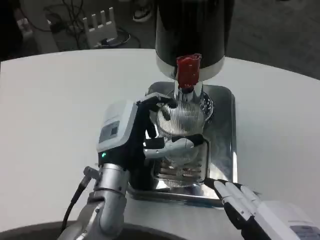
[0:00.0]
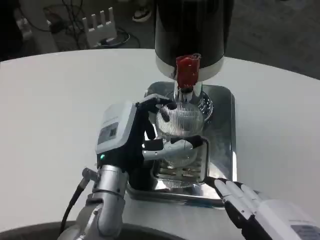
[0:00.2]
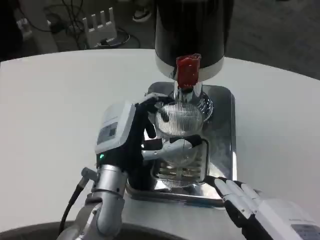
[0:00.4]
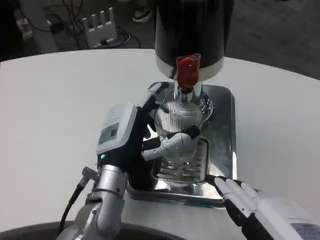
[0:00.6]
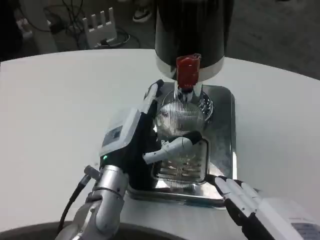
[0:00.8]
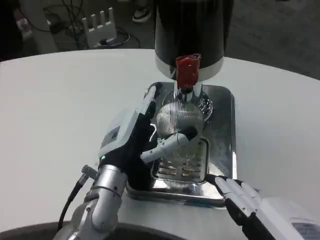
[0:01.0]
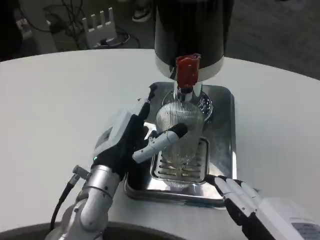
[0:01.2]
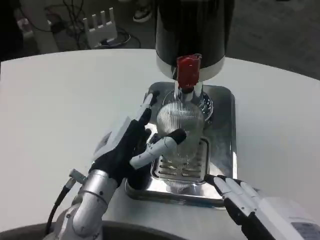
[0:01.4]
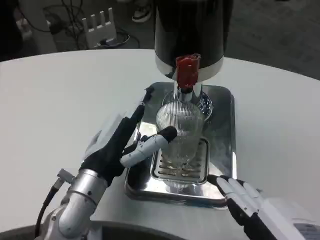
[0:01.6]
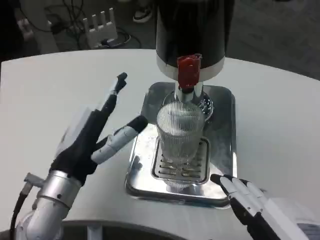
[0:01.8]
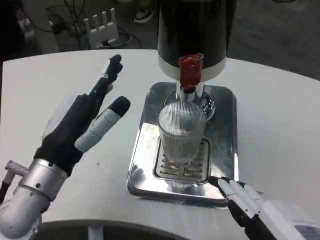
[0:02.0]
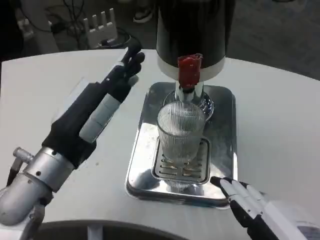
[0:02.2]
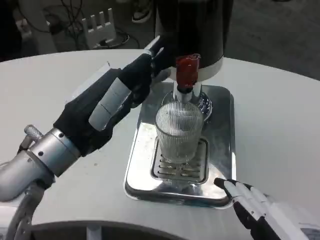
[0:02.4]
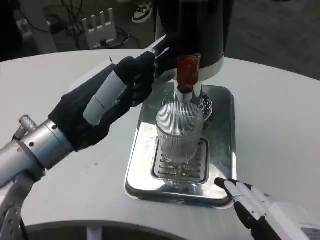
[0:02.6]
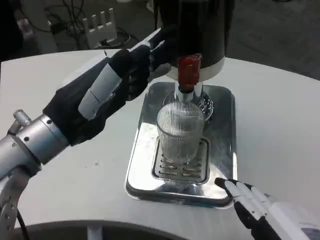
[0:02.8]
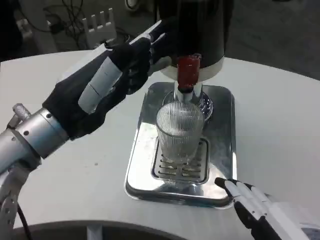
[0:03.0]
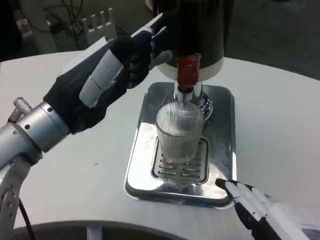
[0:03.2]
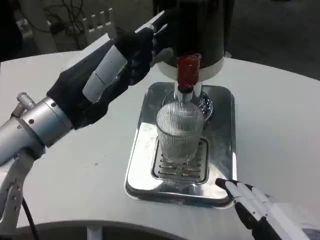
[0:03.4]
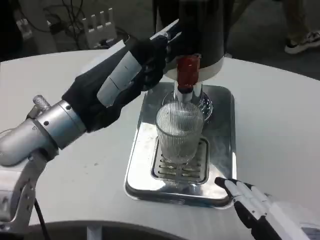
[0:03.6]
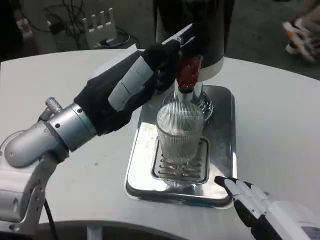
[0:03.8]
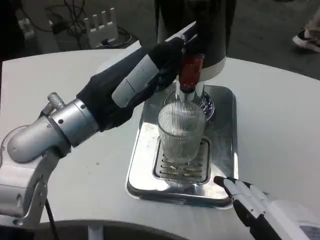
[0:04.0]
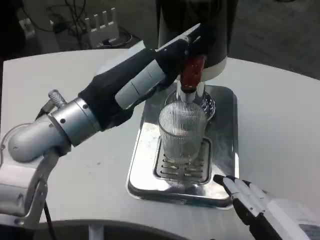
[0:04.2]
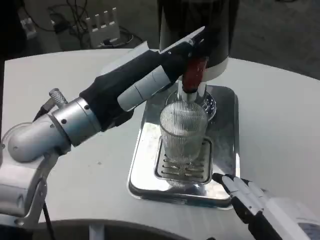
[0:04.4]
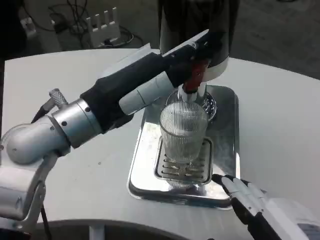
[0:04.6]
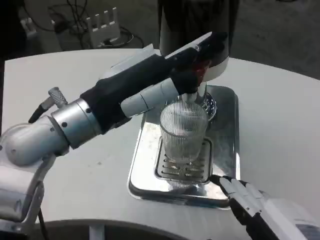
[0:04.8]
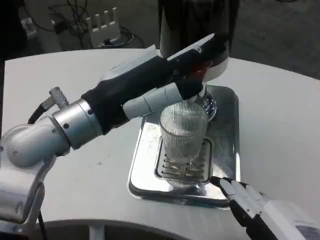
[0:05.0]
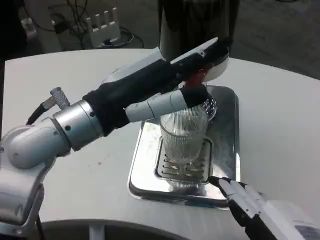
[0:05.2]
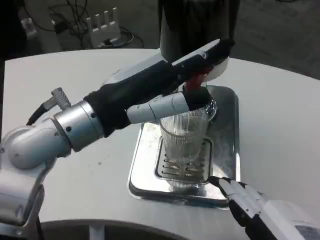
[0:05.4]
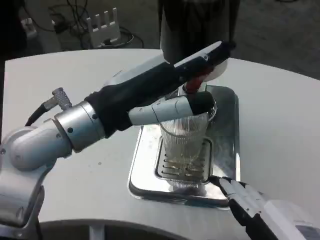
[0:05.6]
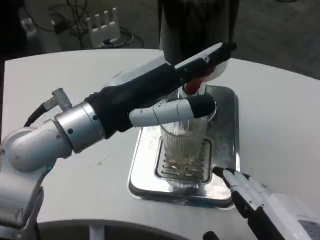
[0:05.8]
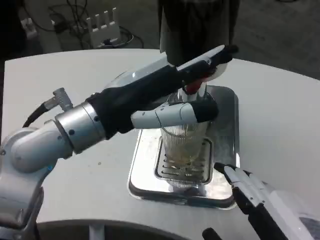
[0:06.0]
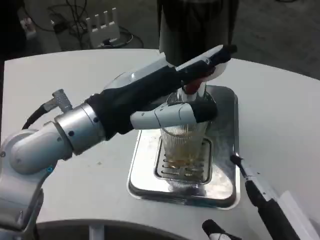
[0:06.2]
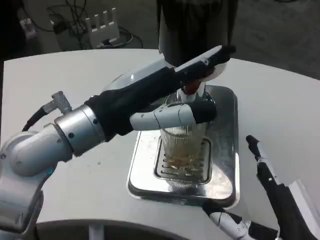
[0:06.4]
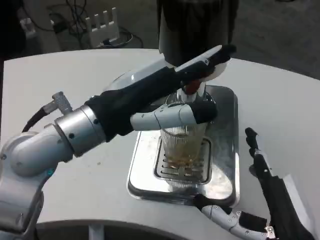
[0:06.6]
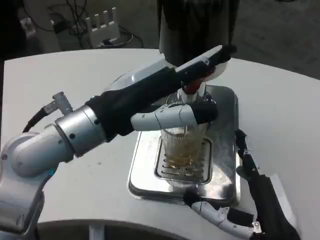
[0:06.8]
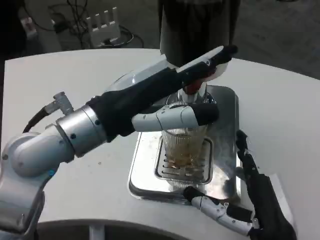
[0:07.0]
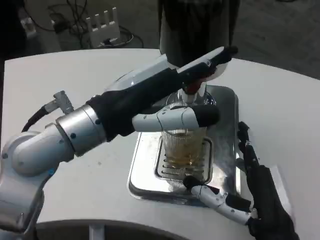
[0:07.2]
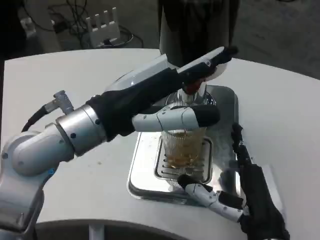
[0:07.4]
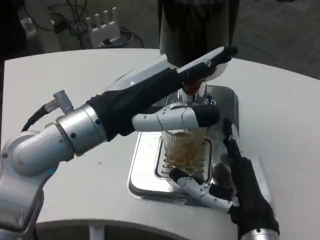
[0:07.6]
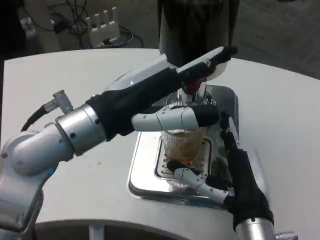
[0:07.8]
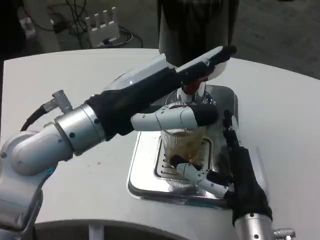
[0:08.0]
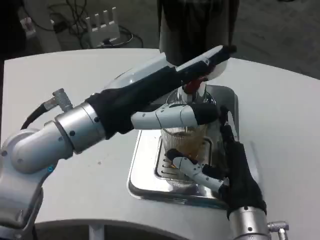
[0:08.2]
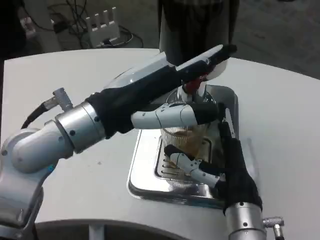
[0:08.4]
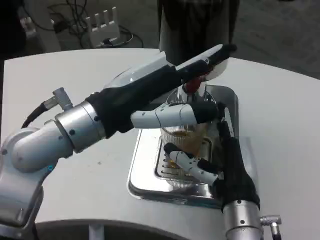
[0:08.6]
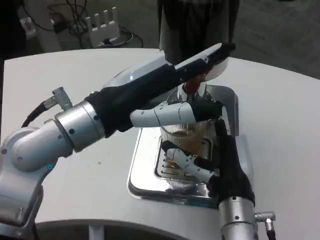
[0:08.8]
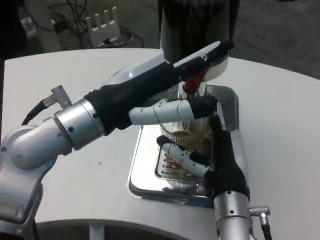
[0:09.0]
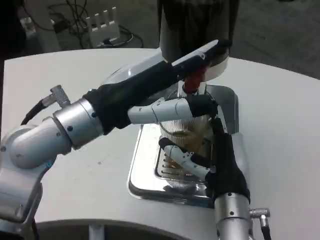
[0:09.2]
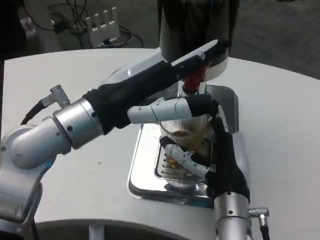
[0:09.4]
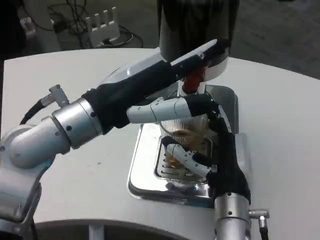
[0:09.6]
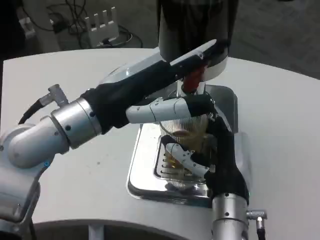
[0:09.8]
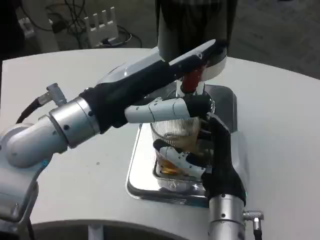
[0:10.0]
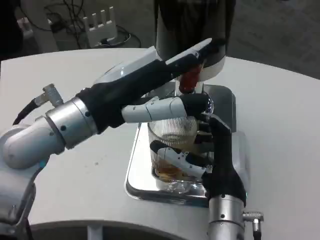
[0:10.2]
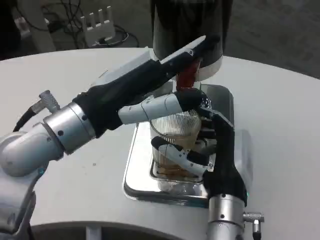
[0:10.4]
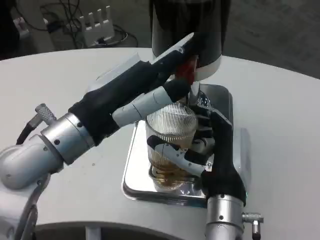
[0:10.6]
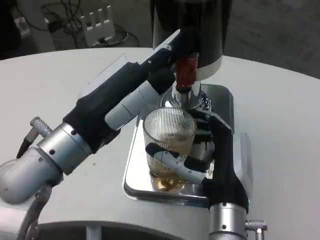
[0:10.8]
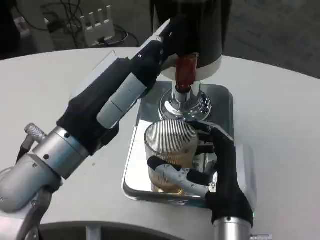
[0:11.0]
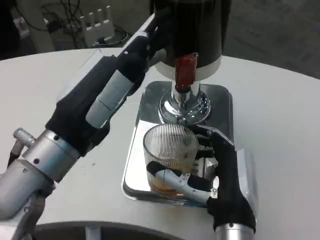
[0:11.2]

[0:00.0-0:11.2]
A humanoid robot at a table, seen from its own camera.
Task of the whole recording: Grasp the cup under the faucet to collect the drink, then remove the cup.
0.0 to 1.6 s: The left hand ends up about 5 cm from where it was.
1.6 to 3.2 s: The left hand moves upward, approximately 15 cm.
4.8 to 6.4 s: The right hand moves approximately 5 cm.
6.4 to 8.0 s: The right hand shifts some 10 cm forward and to the left.
9.6 to 11.2 s: The left hand shifts by roughly 5 cm. The right hand moves backward, approximately 5 cm.

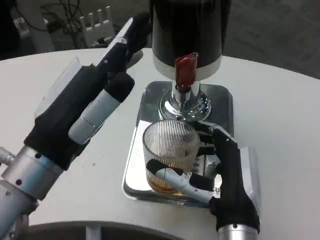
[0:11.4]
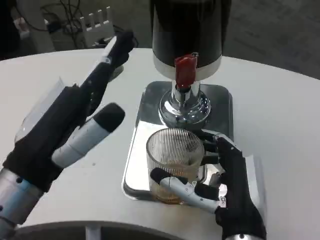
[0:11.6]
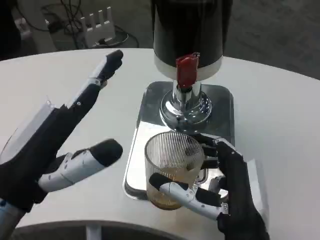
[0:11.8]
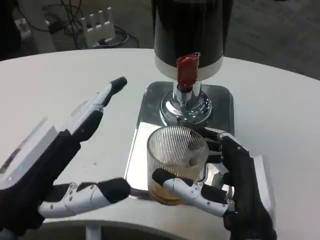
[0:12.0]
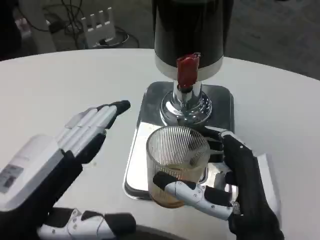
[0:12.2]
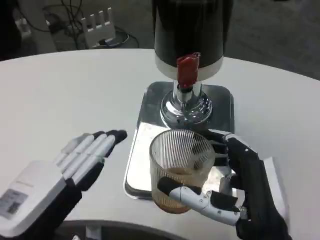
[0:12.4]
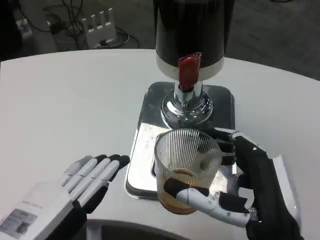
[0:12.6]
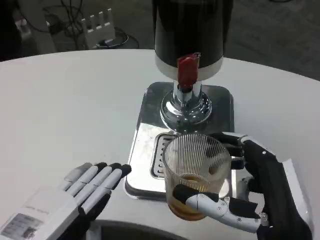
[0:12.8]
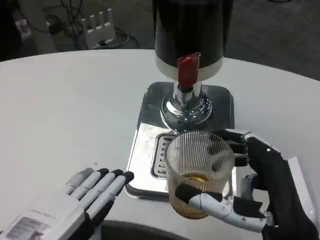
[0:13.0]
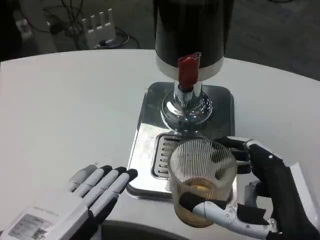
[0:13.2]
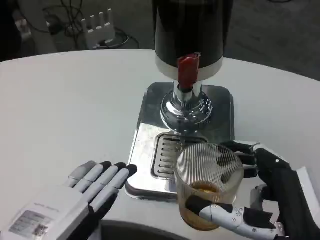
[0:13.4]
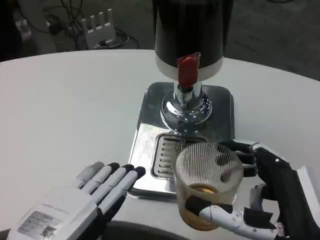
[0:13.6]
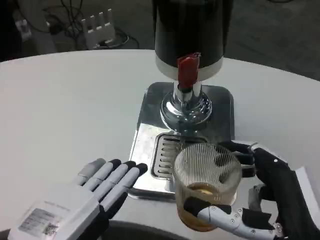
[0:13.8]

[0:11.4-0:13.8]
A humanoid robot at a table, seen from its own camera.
Task of the whole recording: Grasp the cup under the faucet to collect the drink, then remove the cup.
11.4 to 12.6 s: The right hand goes approximately 5 cm backward. The left hand travels downward and backward by approximately 10 cm.

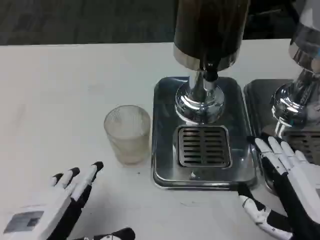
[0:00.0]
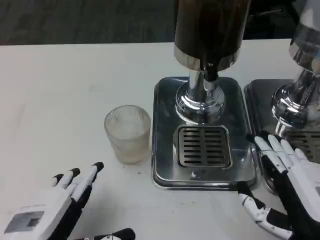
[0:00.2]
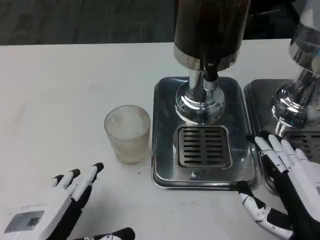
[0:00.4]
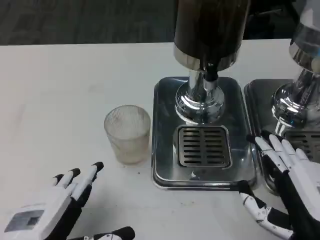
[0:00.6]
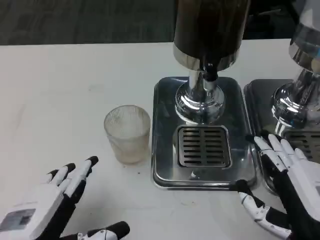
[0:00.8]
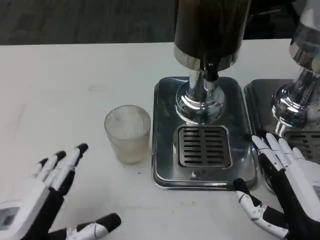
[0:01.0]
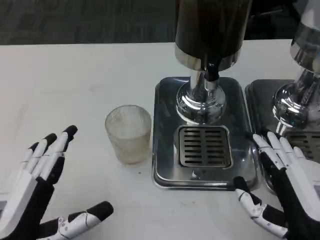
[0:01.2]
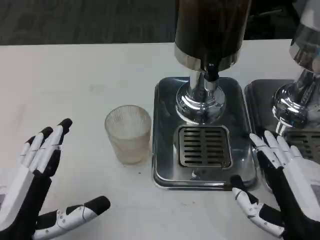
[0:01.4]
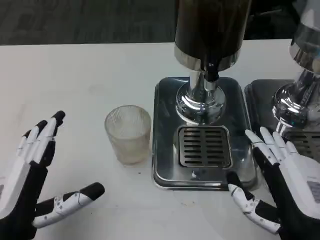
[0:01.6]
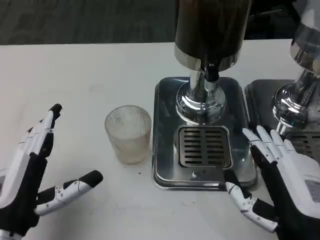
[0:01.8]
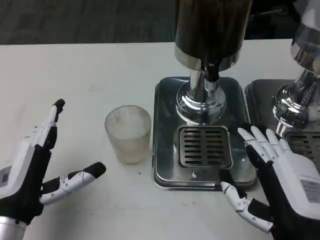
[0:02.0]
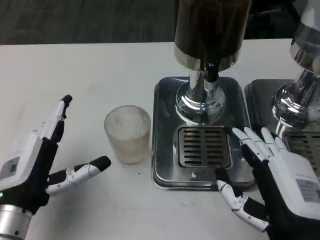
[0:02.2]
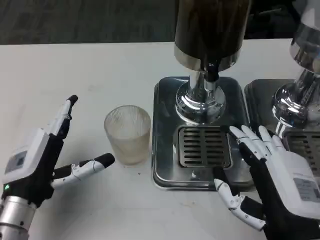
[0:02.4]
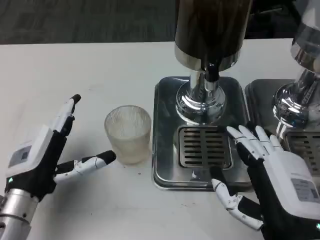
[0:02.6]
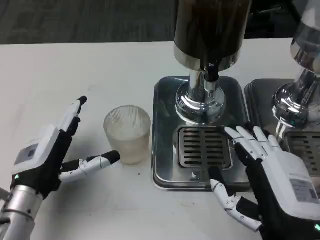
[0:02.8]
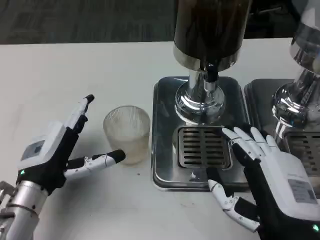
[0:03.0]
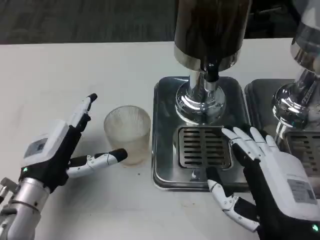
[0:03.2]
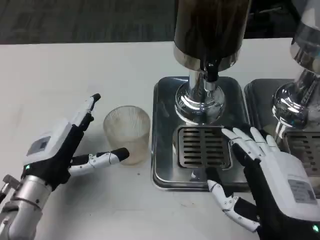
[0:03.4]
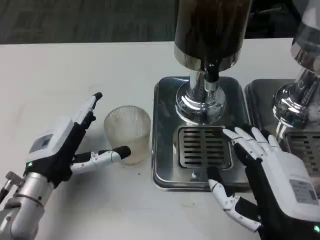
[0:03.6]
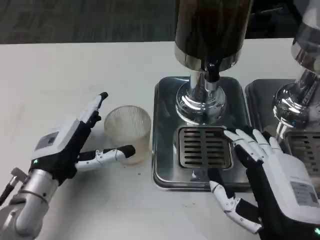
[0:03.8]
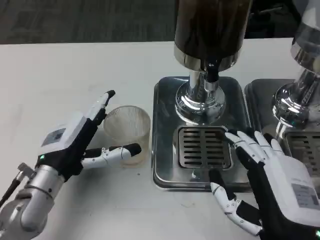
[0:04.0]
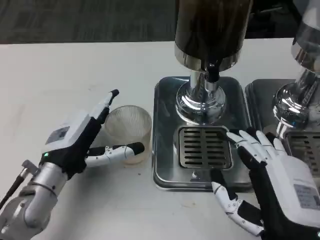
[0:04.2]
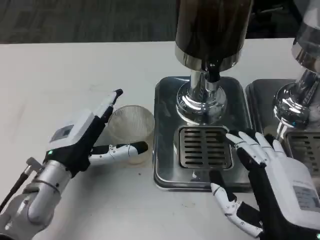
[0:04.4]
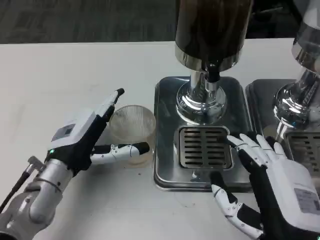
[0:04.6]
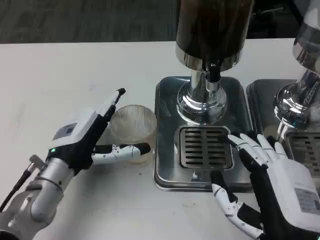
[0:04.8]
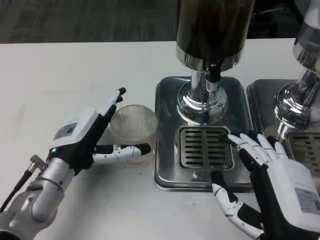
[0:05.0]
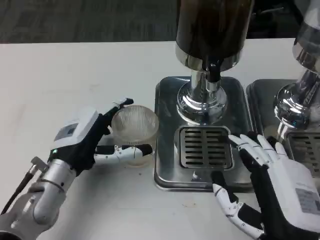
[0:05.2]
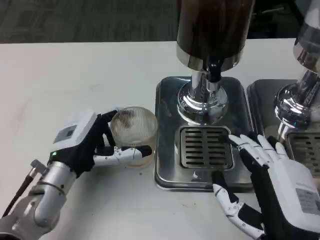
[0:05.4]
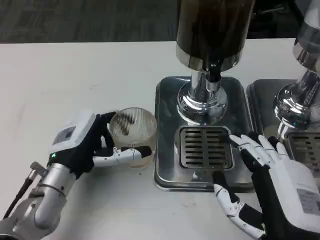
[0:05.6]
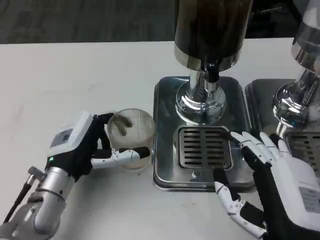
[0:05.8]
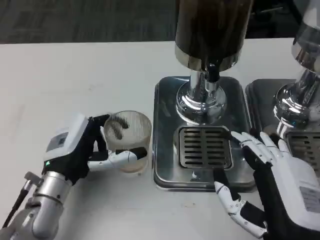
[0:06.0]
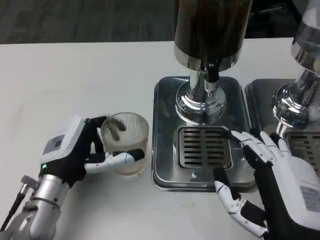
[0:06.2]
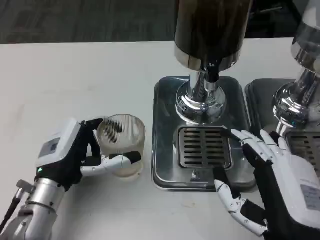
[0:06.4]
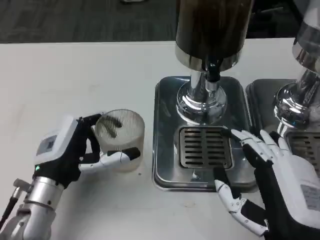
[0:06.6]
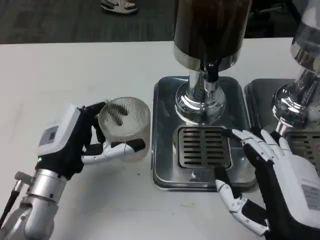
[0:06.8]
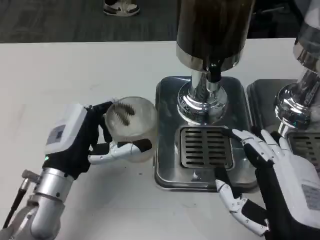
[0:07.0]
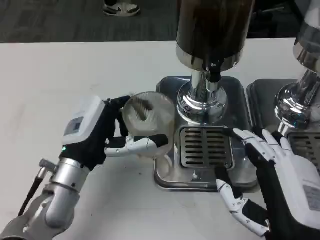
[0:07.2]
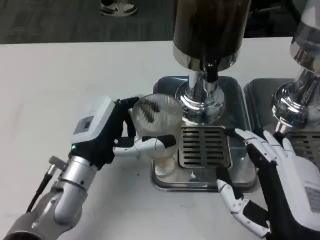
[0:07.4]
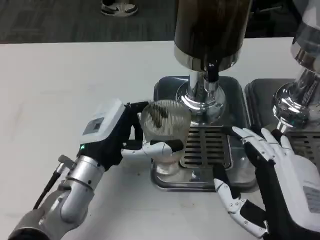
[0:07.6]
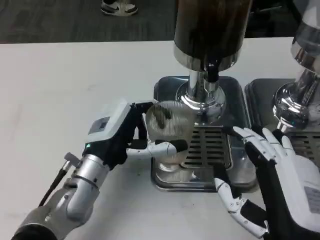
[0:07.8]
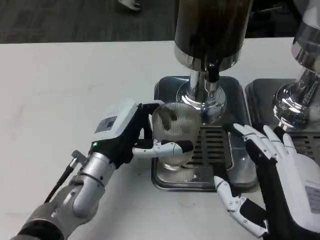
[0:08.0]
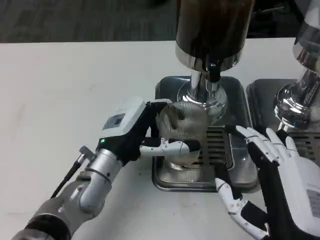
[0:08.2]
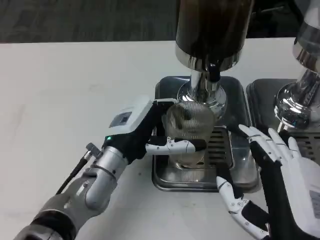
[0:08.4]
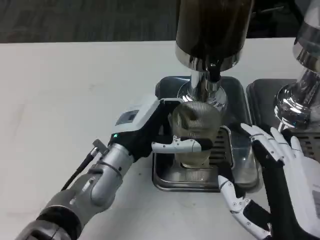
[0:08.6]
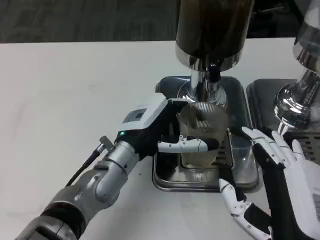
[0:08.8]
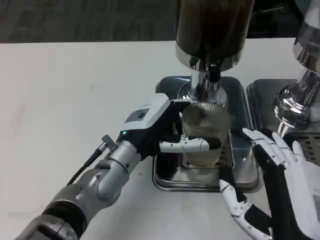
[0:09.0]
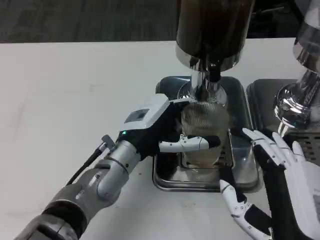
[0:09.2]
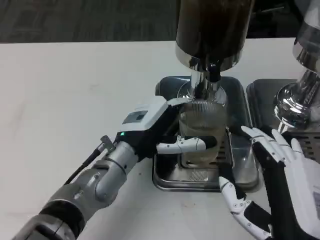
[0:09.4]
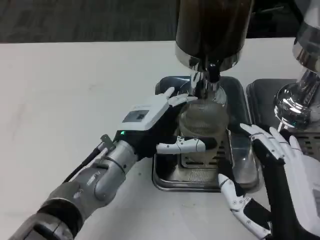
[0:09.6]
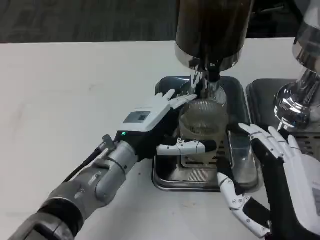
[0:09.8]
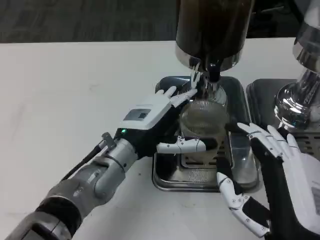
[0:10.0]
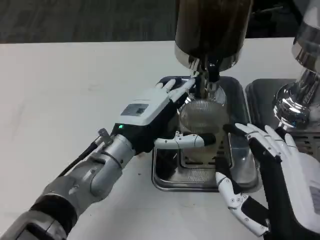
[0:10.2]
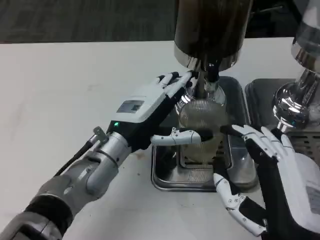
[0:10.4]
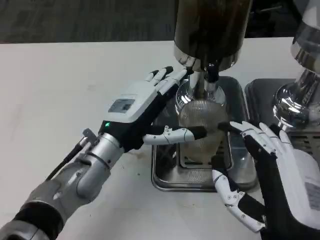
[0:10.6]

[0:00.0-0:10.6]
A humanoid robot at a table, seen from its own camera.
Task of the whole recording: Grasp the cup under the faucet to collect the drink, then remove the cup.
0.0 to 1.6 s: The left hand ends up roughly 5 cm from where it was.
1.6 to 3.0 s: The left hand is displaced forward by roughly 10 cm.
4.6 to 6.0 s: There are only small adjustments of the hands.
6.0 to 7.6 s: The left hand ends up approximately 5 cm from where it was.
7.6 to 9.0 s: The left hand changes place by approximately 5 cm.
